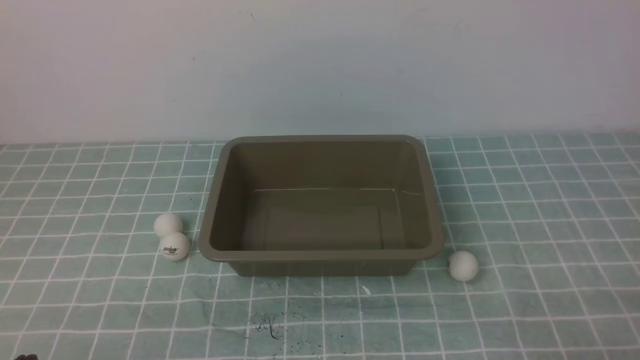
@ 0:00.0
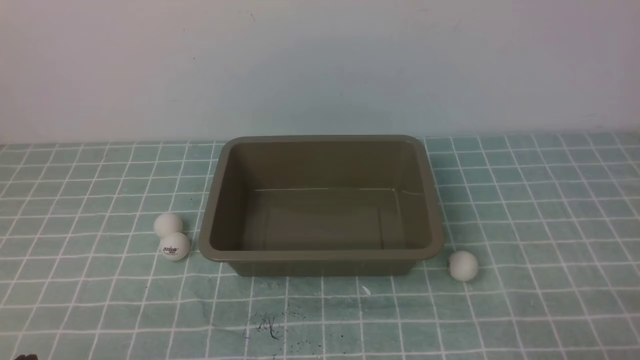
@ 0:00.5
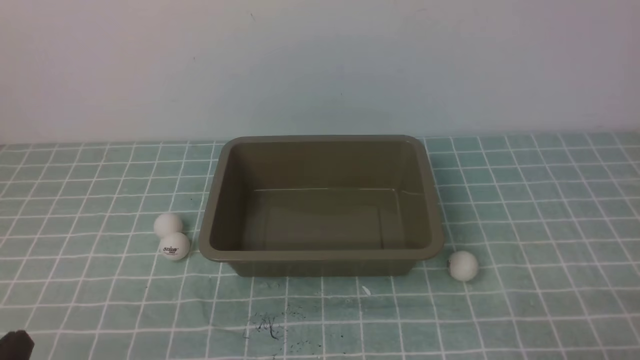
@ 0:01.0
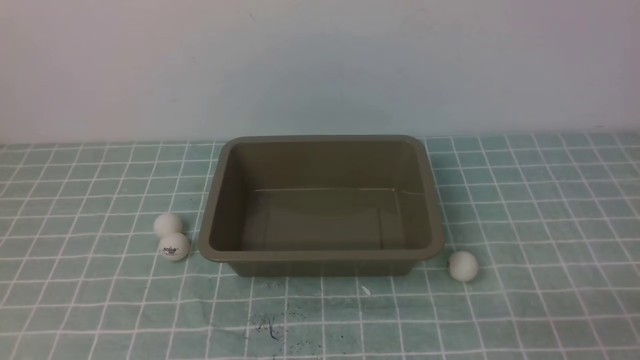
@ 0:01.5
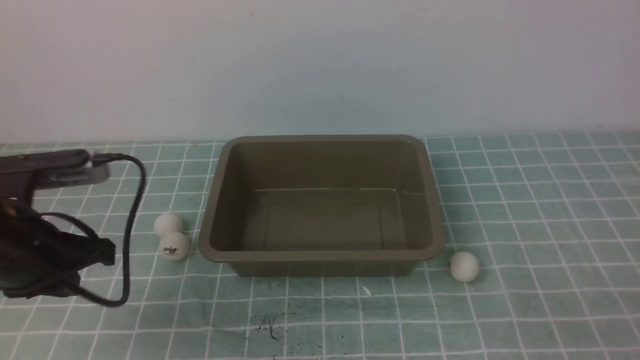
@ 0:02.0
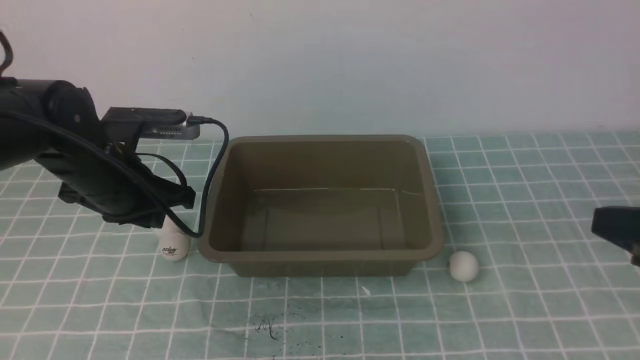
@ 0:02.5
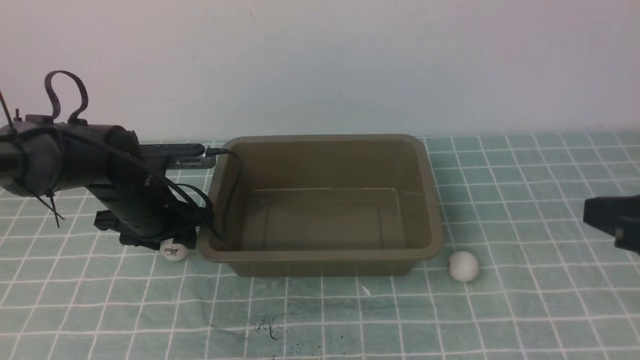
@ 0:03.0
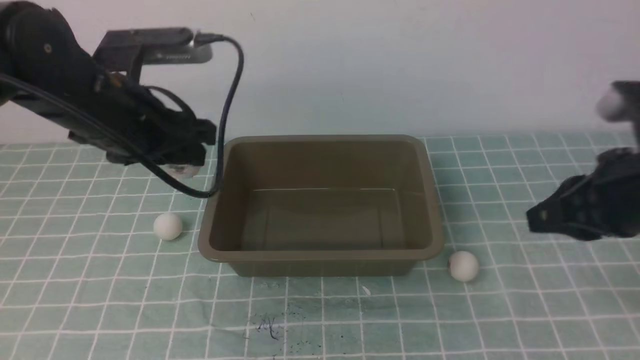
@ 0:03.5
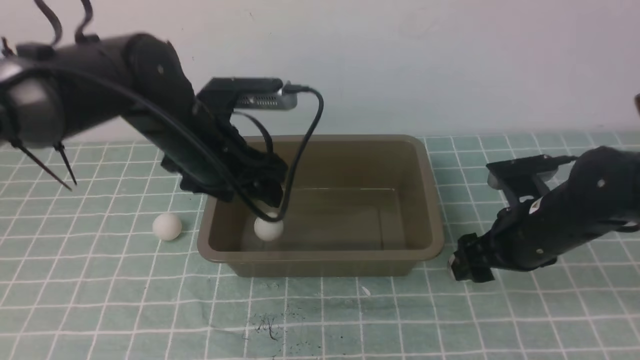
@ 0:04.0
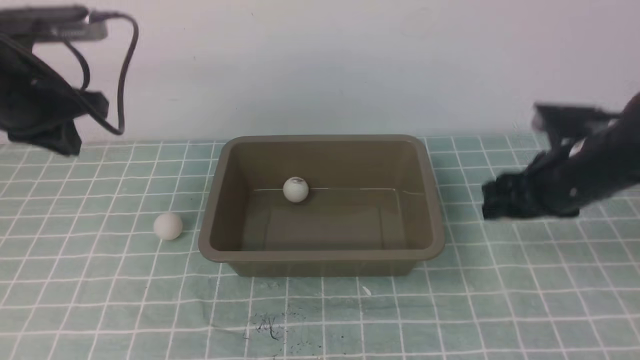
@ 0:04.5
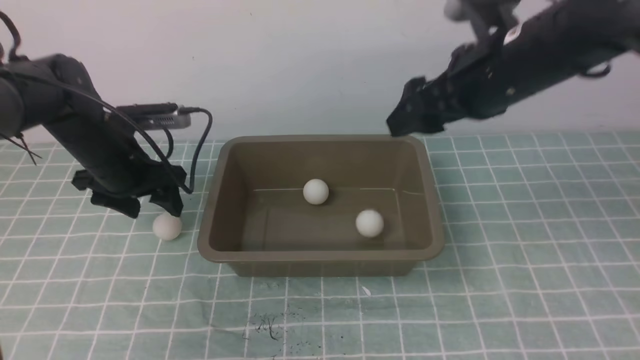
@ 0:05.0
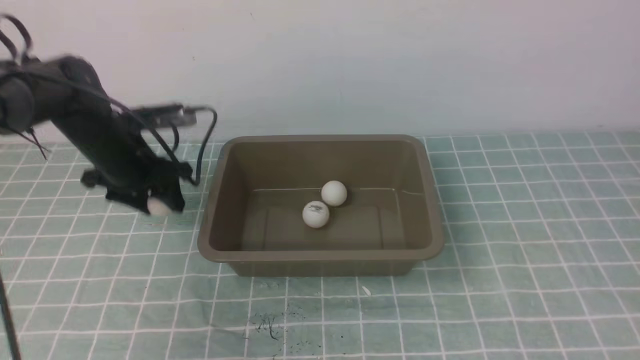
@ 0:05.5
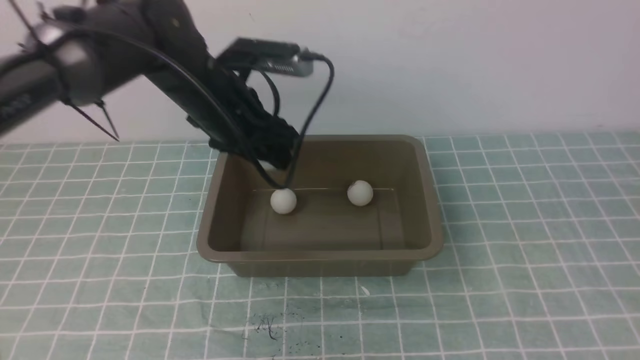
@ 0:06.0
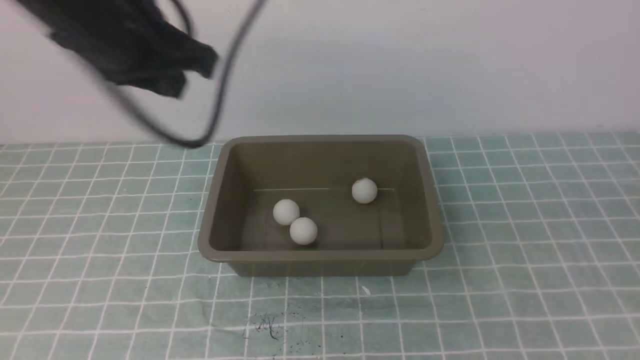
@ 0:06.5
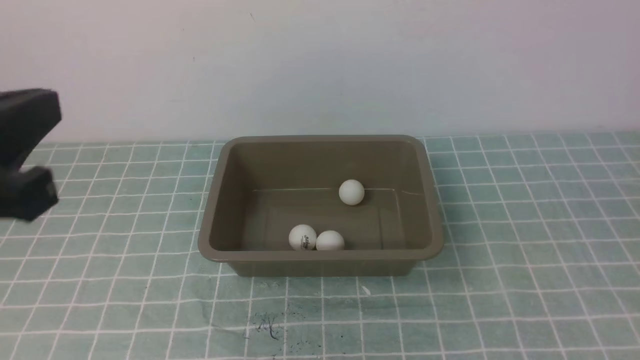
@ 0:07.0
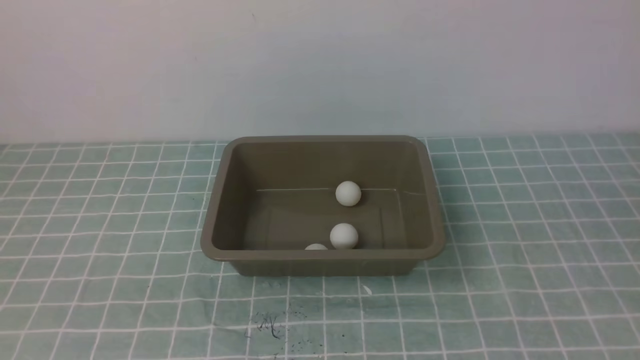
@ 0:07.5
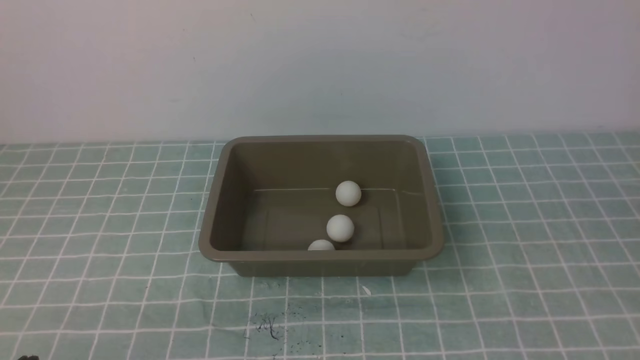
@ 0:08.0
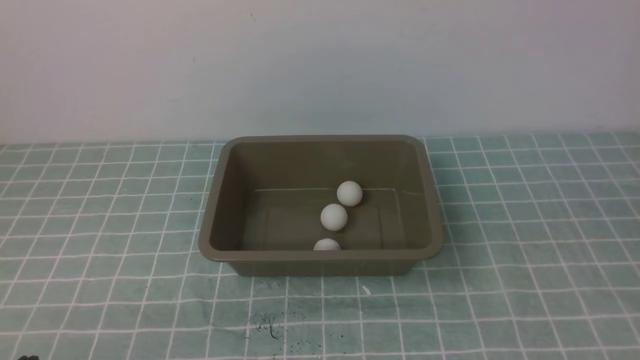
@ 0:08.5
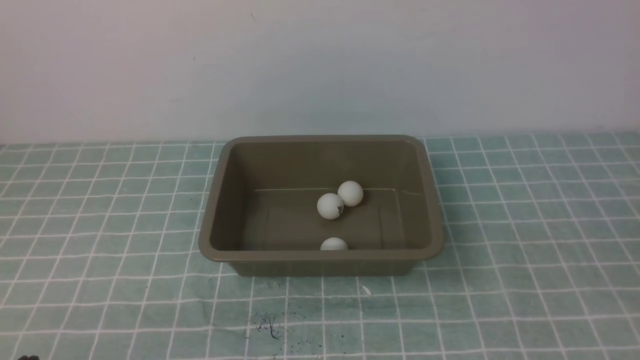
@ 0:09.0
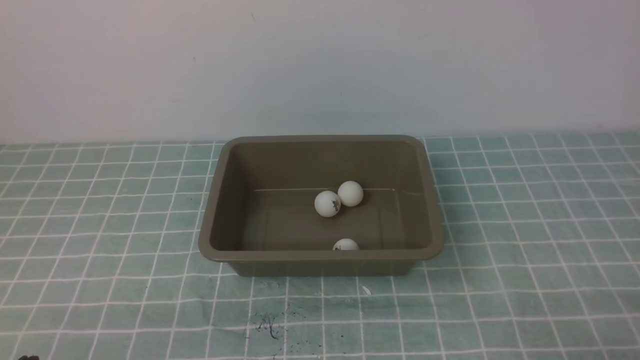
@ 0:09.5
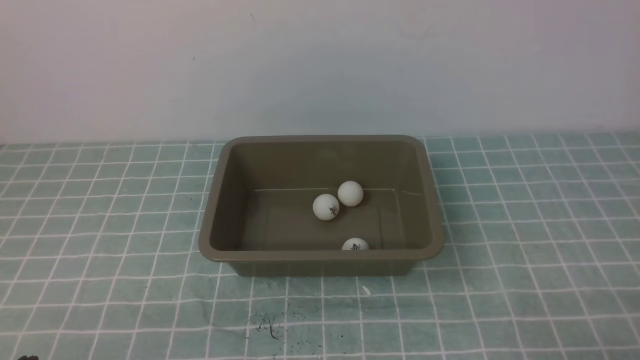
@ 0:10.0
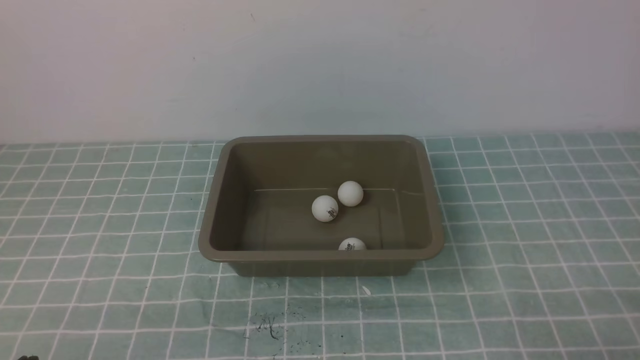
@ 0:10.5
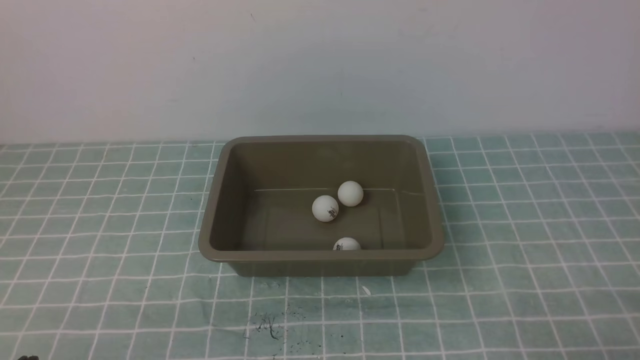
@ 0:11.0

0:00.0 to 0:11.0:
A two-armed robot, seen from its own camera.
Step, 0:00.0 to 0:03.0: use the left arm to clamp the table tennis ball closest to it.
Step, 0:05.0 to 0:05.5: use the left arm to clamp the table tennis ball closest to it.
0:00.0 to 0:02.0: The left gripper goes some 20 cm forward and upward. The right gripper goes about 5 cm upward.
0:02.0 to 0:03.5: The left gripper travels forward and to the right by roughly 15 cm, and opens its fingers. Meanwhile the right gripper moves forward, some 20 cm.
0:03.5 to 0:05.5: The right gripper moves upward and backward, about 20 cm, and opens, then closes once more. Meanwhile the left gripper is displaced forward, downward and to the left by approximately 10 cm, and closes and opens again.
0:05.5 to 0:07.5: The right gripper travels backward and downward by approximately 10 cm. Meanwhile the left gripper shifts approximately 40 cm backward, and closes its fingers.
0:07.5 to 0:09.0: The two grippers go roughly 10 cm downward.
